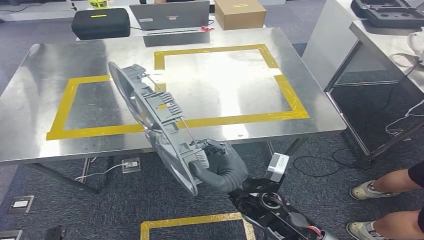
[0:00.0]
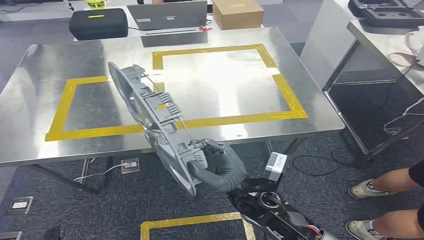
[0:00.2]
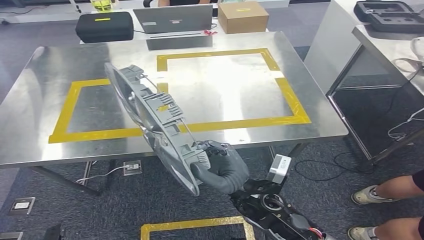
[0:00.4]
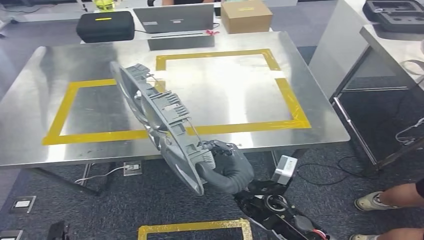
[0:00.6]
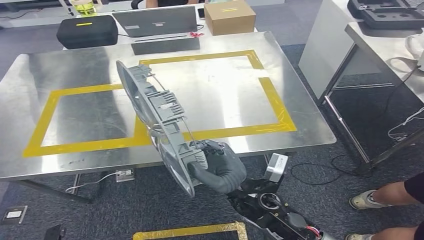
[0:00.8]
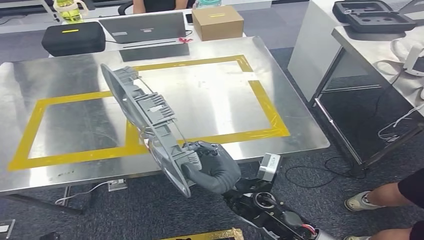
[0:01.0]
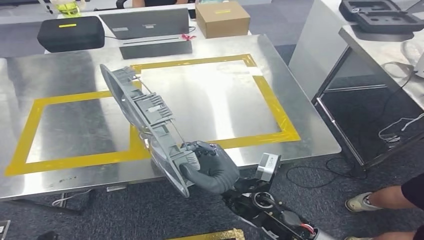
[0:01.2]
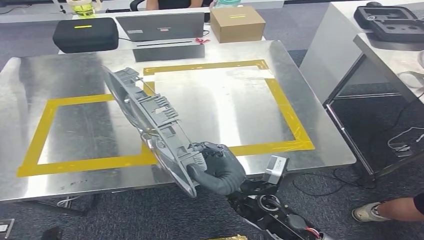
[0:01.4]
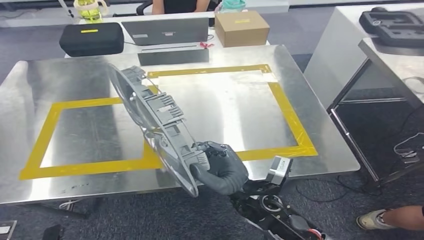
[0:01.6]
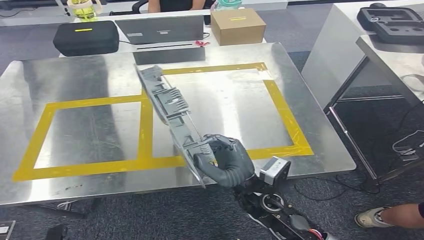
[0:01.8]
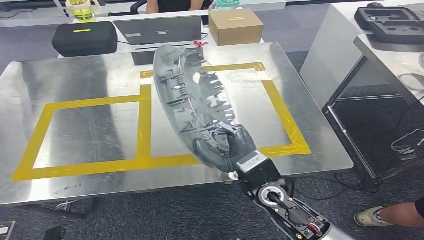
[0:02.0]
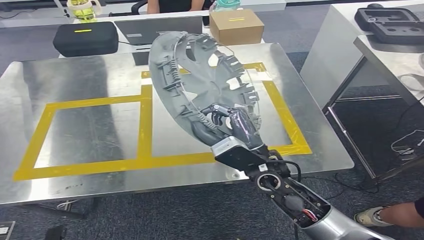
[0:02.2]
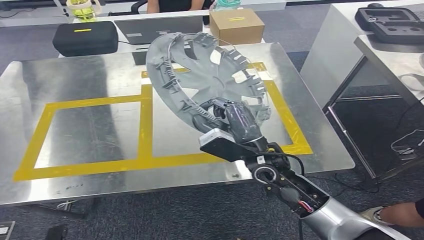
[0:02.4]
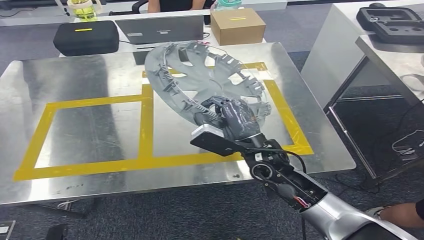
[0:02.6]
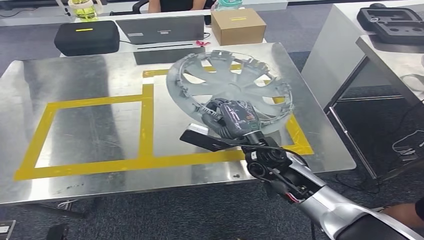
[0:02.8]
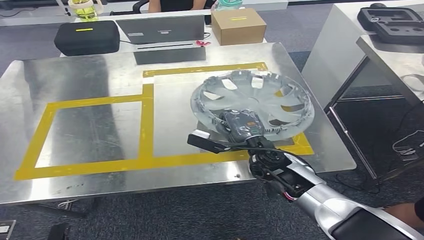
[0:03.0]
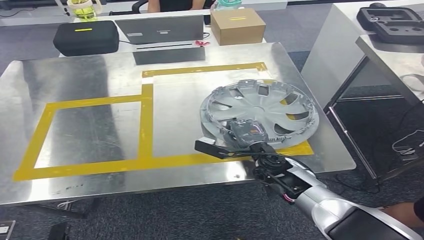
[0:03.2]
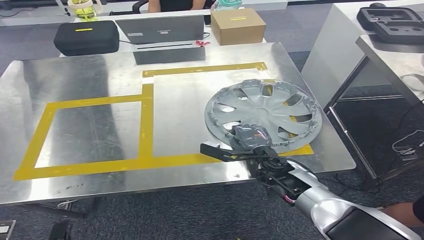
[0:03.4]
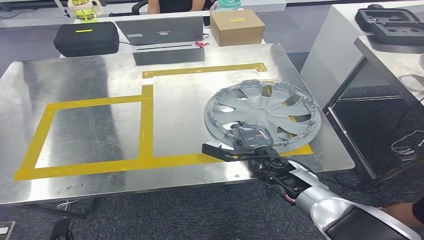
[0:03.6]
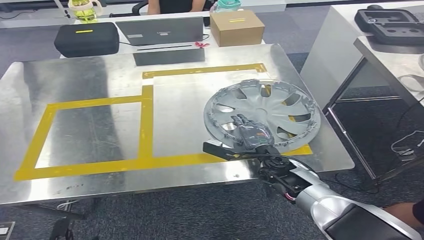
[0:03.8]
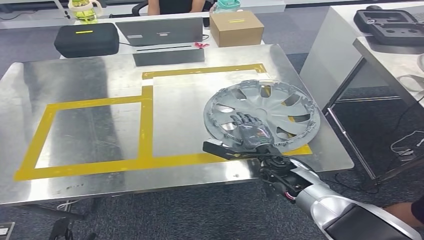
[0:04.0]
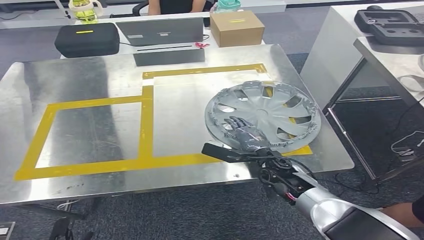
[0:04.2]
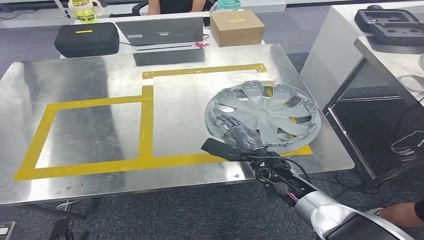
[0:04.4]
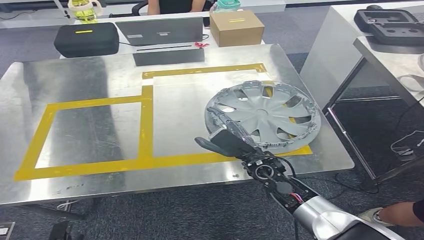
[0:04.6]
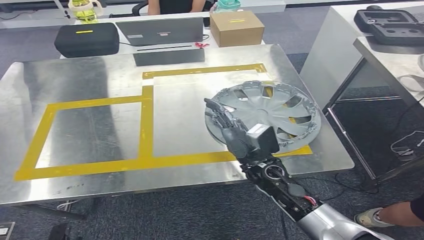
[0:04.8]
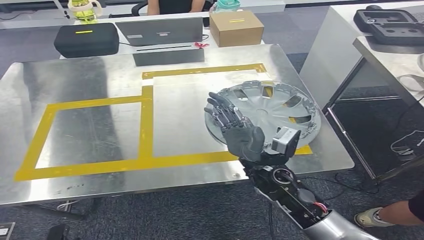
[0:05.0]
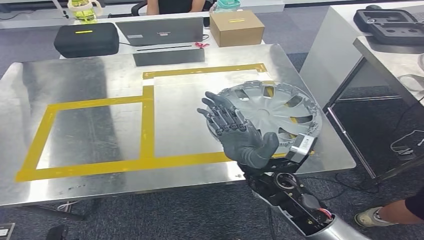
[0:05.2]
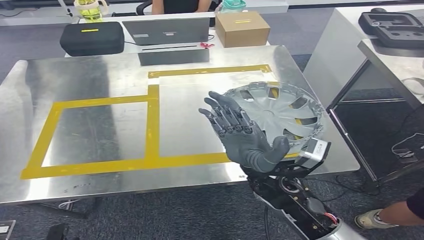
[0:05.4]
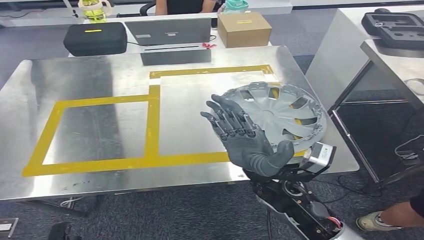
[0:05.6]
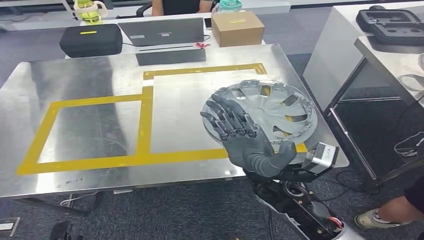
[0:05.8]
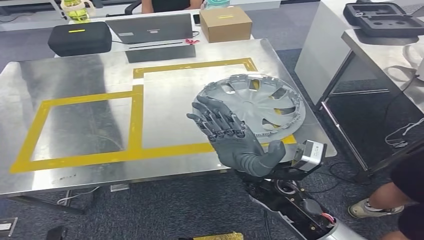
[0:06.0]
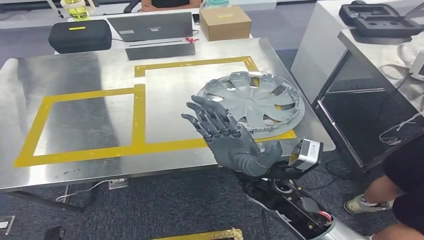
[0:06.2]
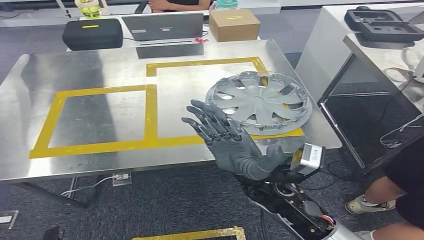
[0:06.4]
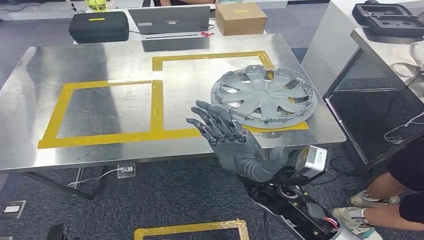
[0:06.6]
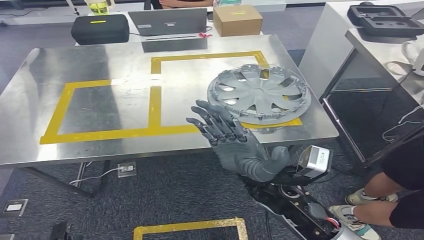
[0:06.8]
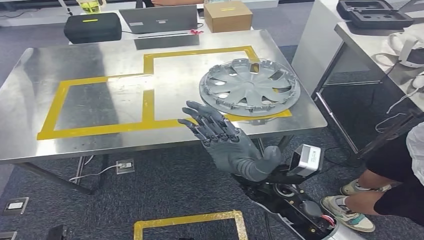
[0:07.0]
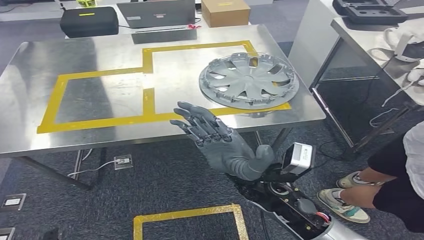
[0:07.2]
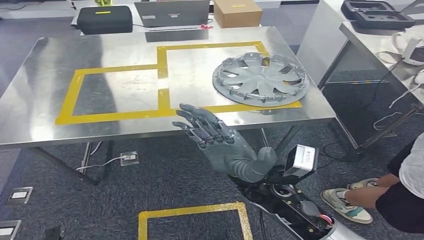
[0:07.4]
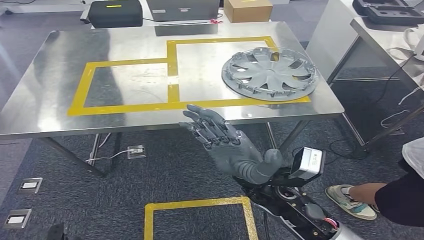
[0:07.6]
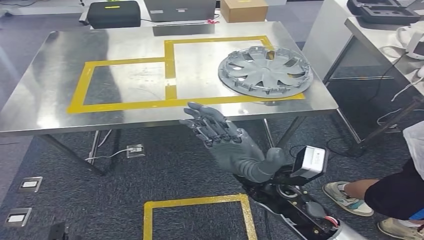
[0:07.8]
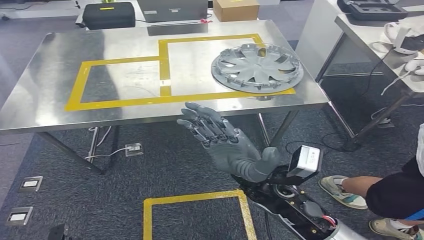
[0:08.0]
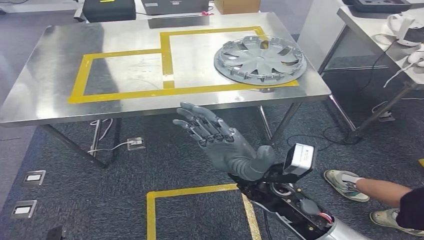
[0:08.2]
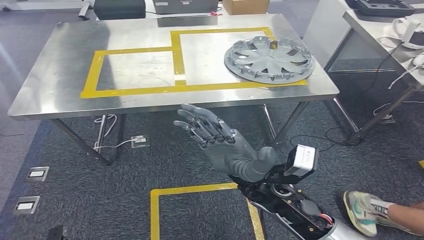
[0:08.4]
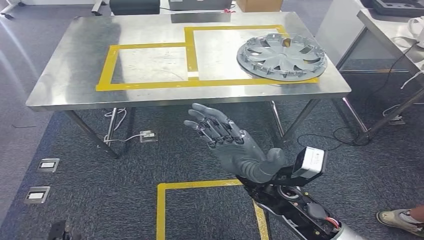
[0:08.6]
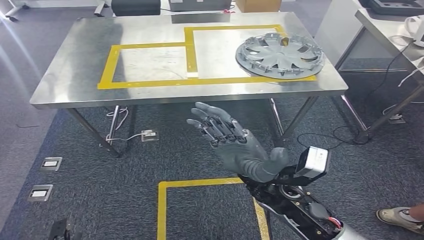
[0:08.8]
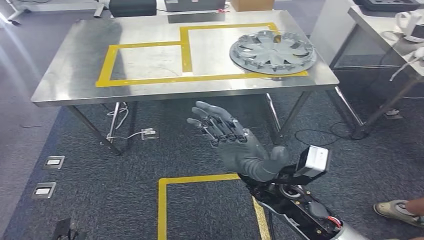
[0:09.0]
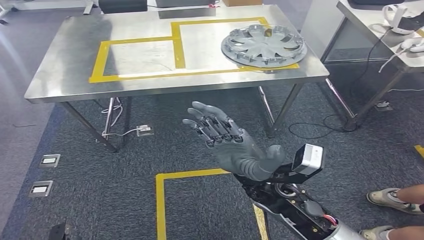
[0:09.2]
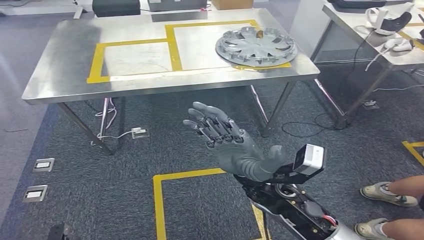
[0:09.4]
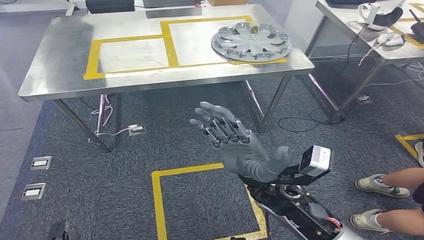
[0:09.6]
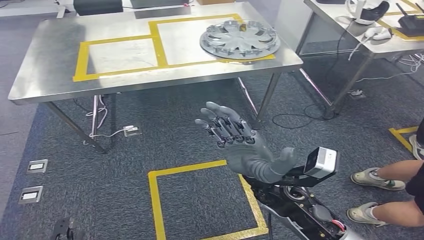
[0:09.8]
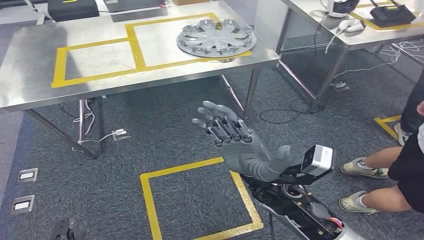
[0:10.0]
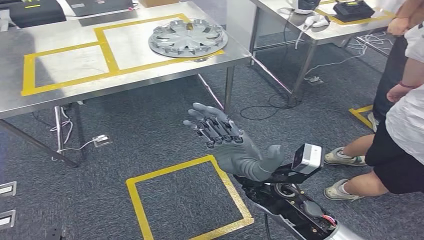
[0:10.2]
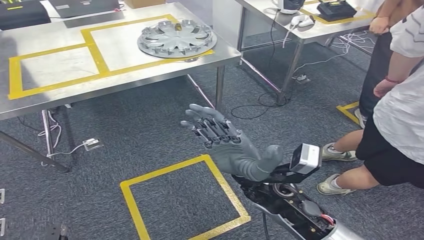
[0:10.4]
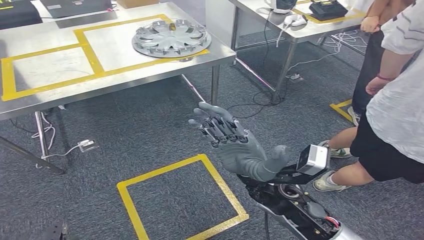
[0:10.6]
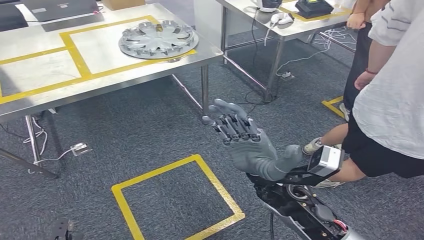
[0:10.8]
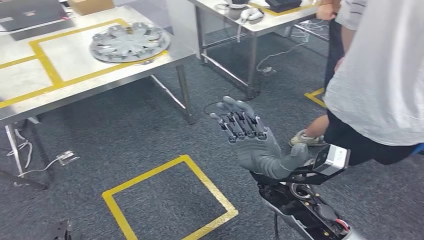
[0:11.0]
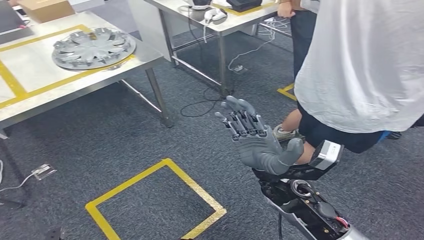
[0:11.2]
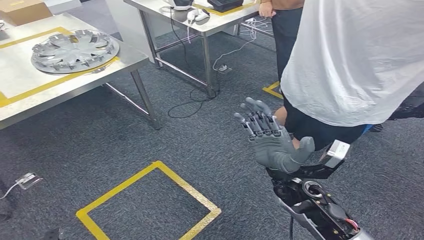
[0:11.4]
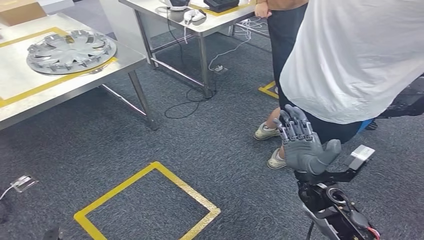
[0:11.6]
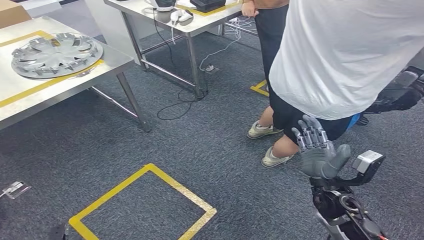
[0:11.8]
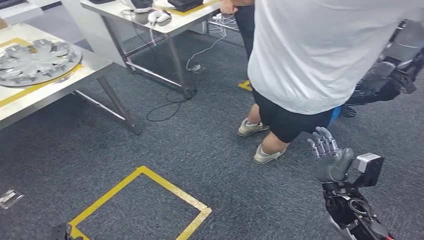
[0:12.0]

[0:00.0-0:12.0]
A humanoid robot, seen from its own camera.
Step, 0:00.0 to 0:05.0: Insert the small component into the corresponding slot on the workbench.
0:03.0 to 0:04.4: The right hand moves downward, some 5 cm.

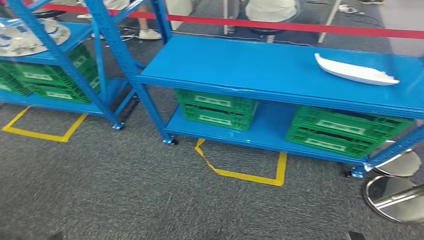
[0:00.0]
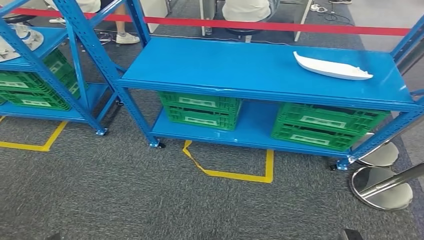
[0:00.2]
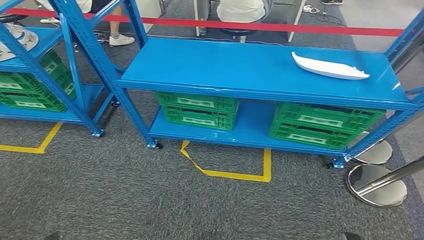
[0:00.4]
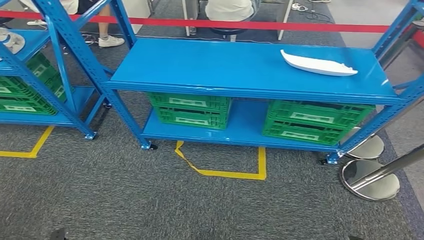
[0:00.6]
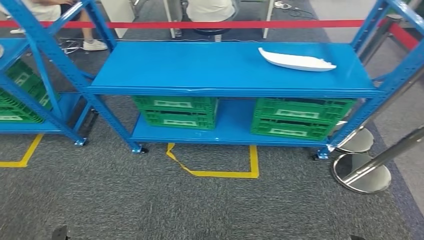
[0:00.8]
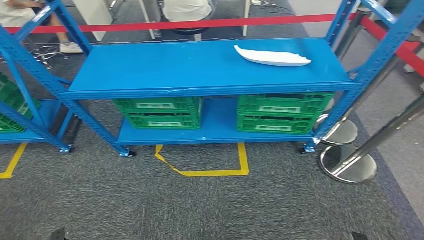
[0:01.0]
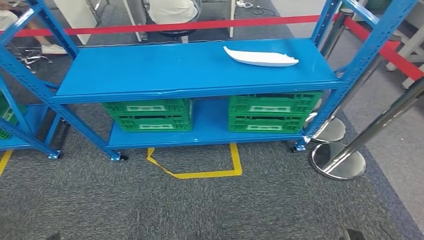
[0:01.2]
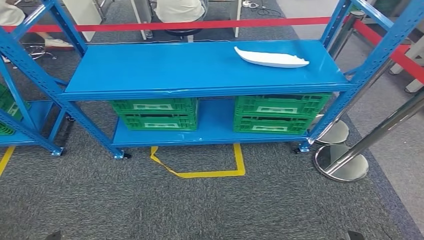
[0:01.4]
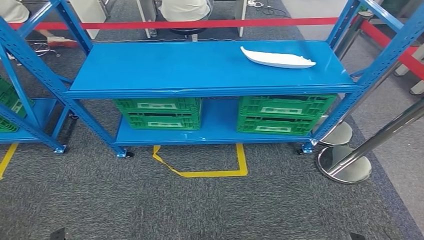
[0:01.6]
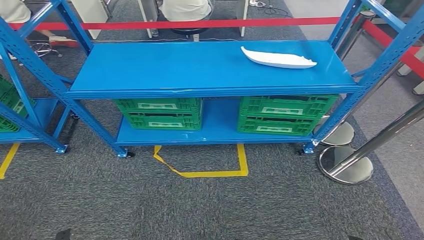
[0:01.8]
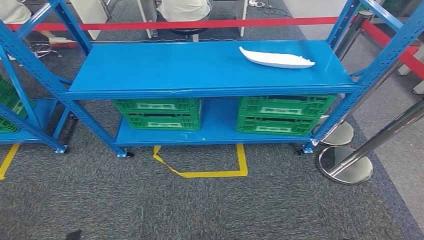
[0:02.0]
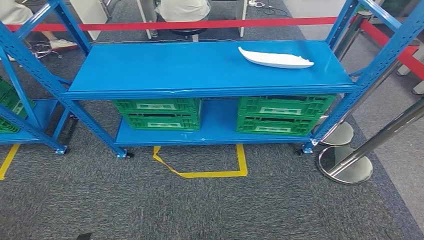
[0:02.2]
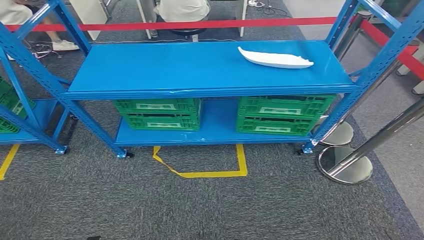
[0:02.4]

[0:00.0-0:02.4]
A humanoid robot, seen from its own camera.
Step, 0:00.0 to 0:02.2: Move to the initial position of the workbench.
